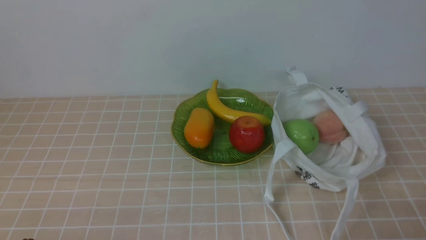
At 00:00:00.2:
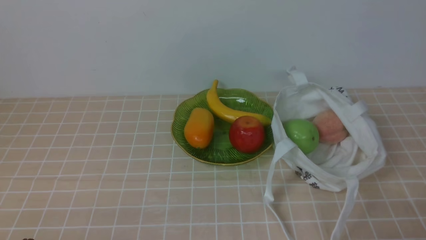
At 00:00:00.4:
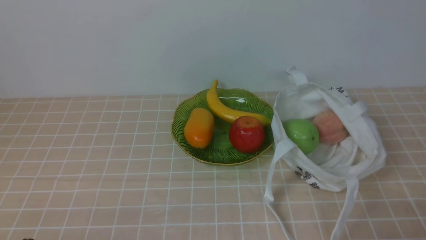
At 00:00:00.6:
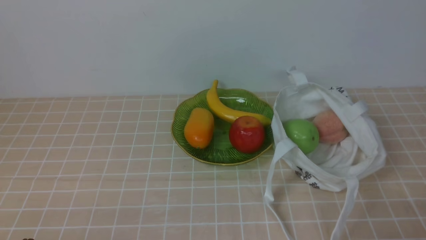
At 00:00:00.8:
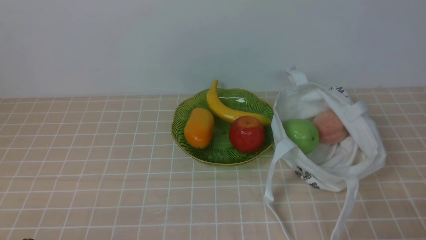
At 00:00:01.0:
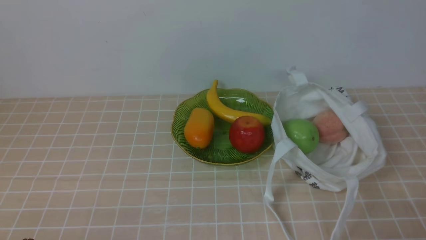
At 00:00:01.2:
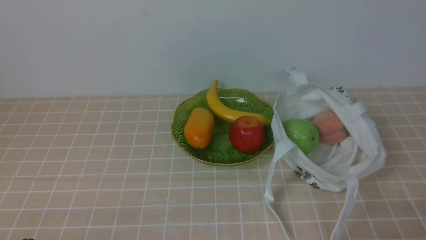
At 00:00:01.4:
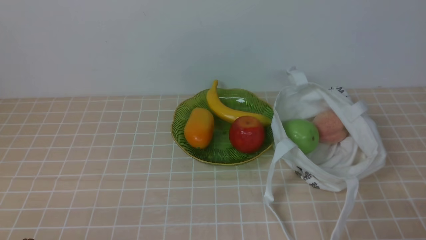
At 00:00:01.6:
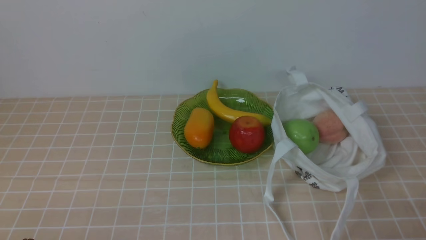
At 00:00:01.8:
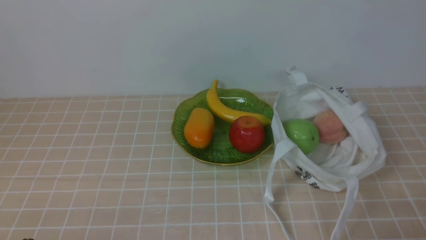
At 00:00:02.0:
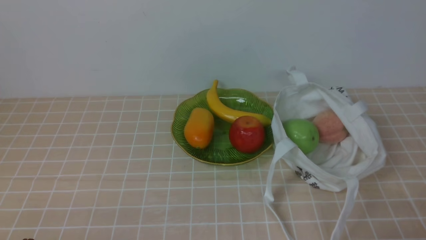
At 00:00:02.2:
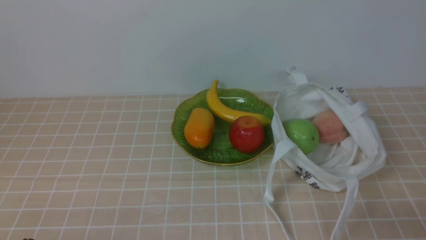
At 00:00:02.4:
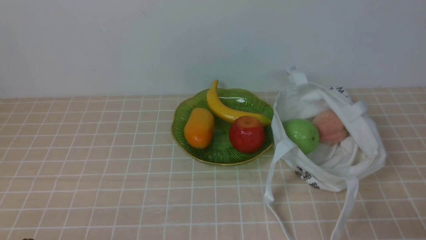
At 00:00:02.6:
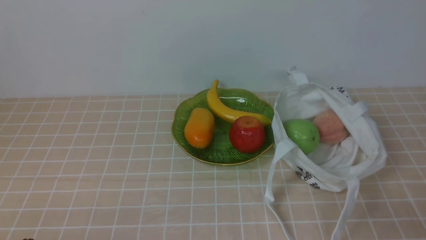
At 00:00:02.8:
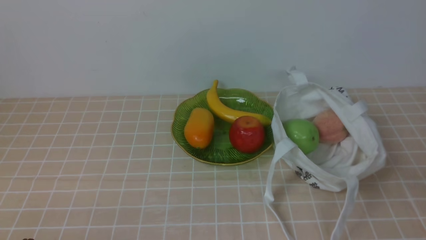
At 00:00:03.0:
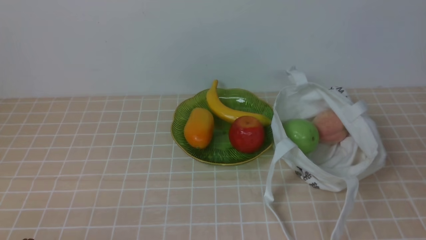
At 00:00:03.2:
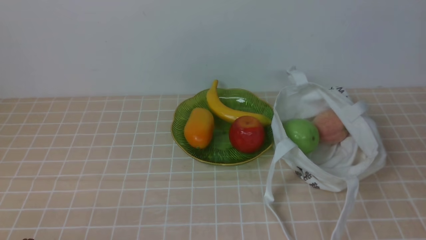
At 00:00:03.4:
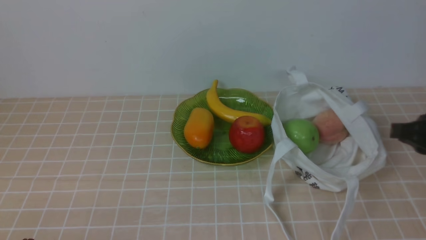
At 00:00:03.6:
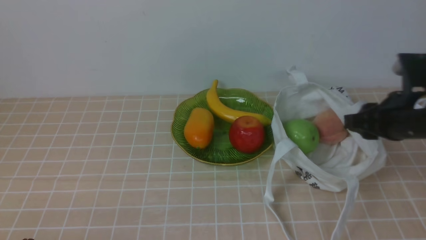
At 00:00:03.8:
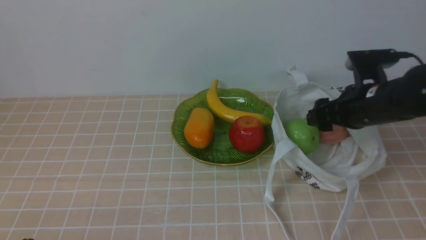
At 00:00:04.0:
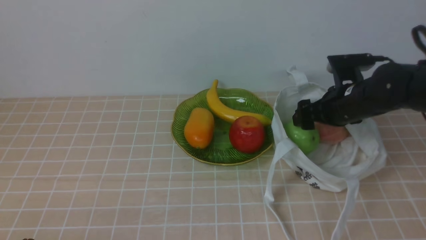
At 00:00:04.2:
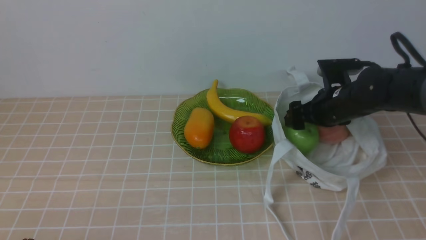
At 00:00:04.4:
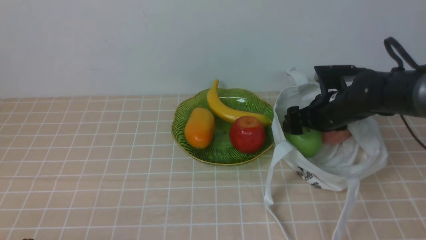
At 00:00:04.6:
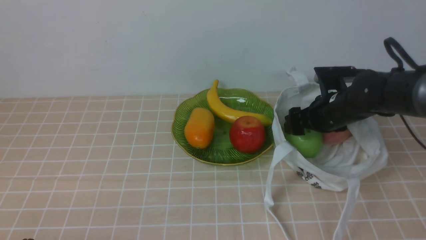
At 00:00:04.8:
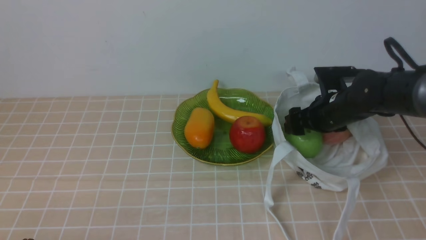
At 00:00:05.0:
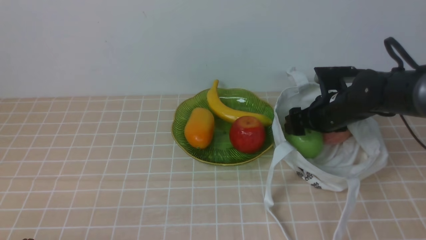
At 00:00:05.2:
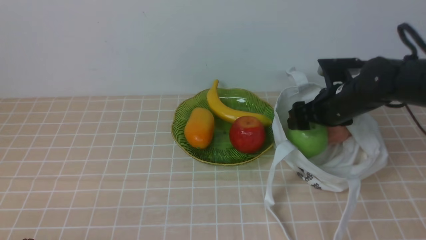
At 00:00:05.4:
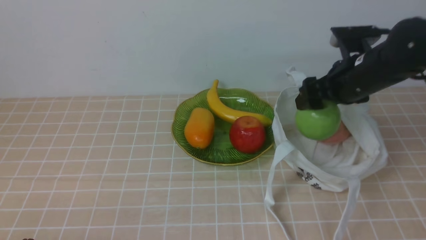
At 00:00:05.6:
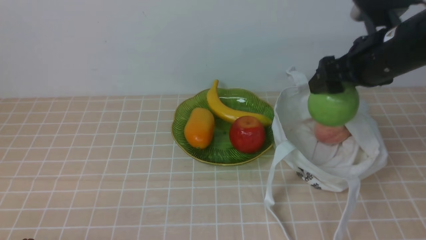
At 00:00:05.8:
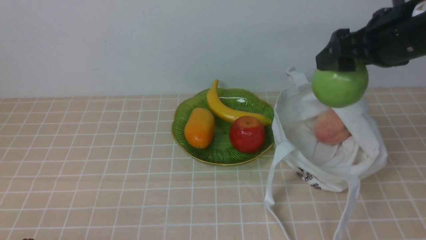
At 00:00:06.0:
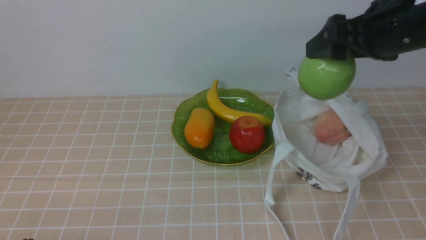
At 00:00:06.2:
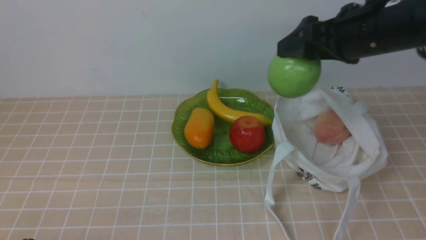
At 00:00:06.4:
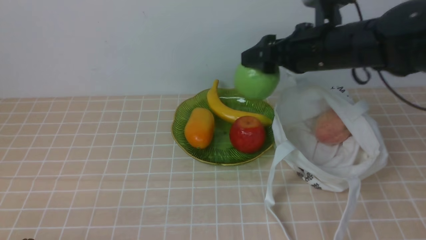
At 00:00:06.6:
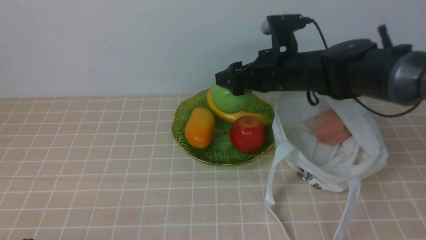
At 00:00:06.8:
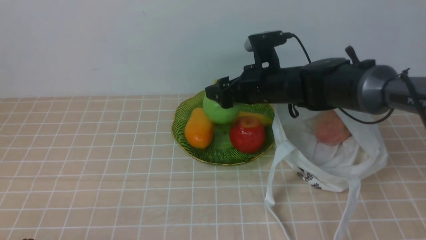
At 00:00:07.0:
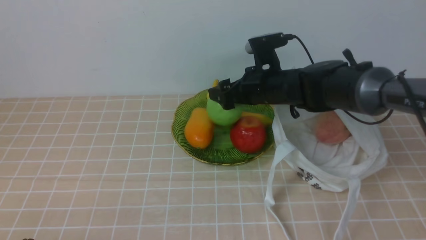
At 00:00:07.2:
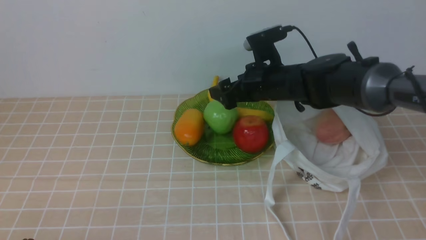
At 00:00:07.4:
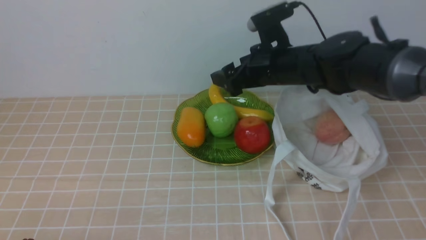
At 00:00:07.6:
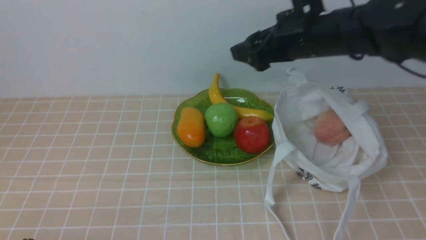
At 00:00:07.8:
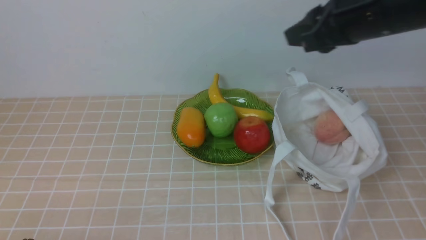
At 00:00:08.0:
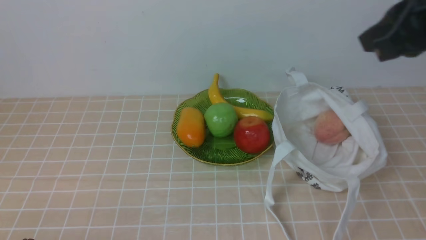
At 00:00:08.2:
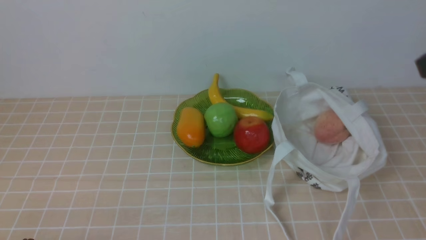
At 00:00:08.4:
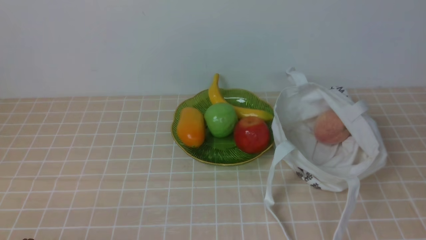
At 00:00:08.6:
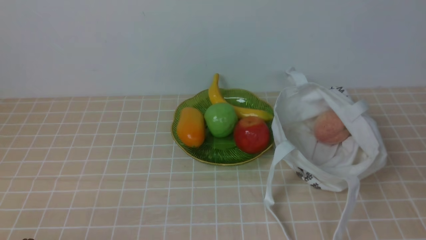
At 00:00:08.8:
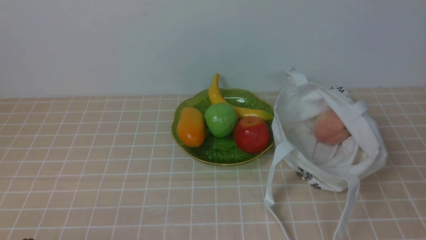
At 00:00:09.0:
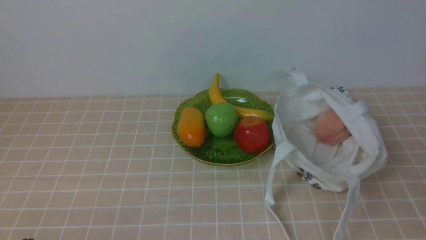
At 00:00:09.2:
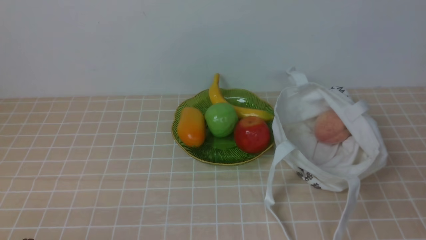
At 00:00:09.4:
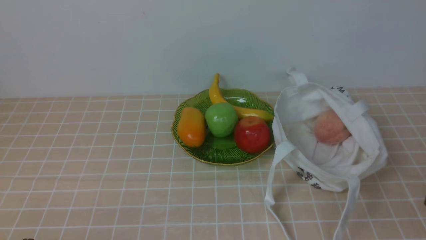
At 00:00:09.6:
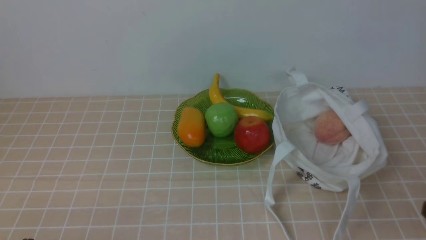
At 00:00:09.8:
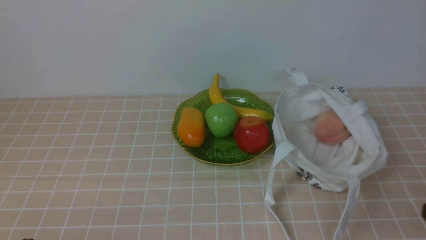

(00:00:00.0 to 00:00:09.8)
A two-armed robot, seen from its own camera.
Step, 00:00:00.0 - 00:00:05.0: use the right arm to grab an apple from the bag.
Step, 00:00:05.4 - 00:00:07.2: use the right arm to put the apple into the empty plate on the left.
00:00:02.8 - 00:00:04.2: The right gripper shifts roughly 35 cm forward, and opens up.
00:00:04.2 - 00:00:05.6: The right gripper is displaced upward by some 10 cm.
00:00:05.6 - 00:00:07.0: The right gripper travels to the left, downward and forward by about 15 cm.
00:00:07.0 - 00:00:08.4: The right gripper moves backward, upward and to the right, some 35 cm, and closes.

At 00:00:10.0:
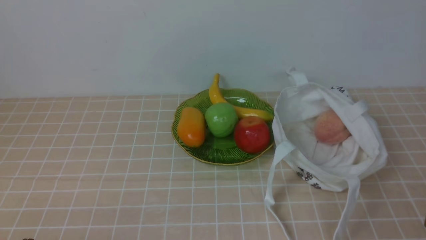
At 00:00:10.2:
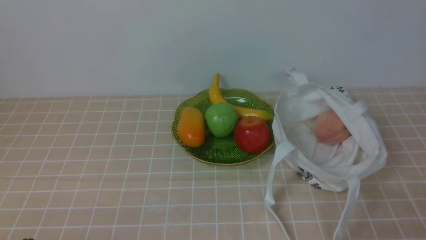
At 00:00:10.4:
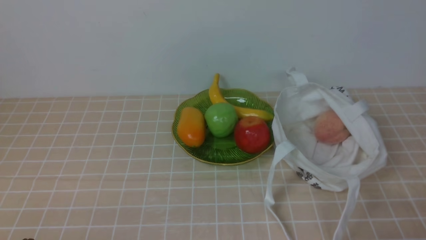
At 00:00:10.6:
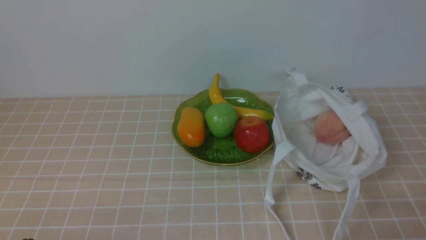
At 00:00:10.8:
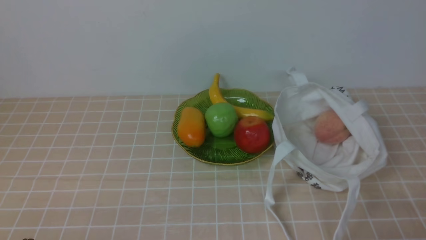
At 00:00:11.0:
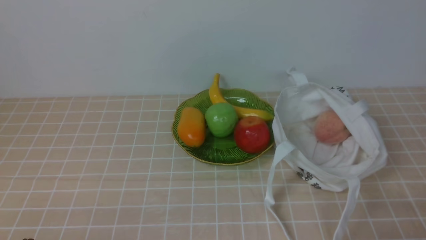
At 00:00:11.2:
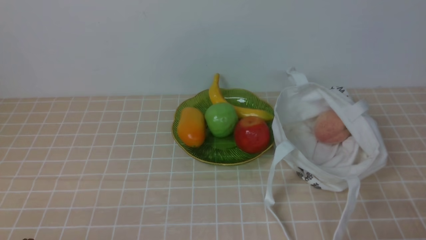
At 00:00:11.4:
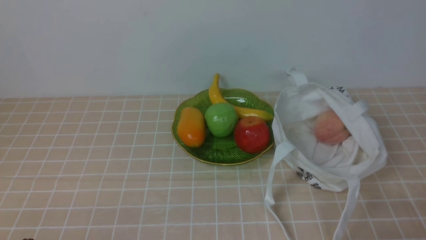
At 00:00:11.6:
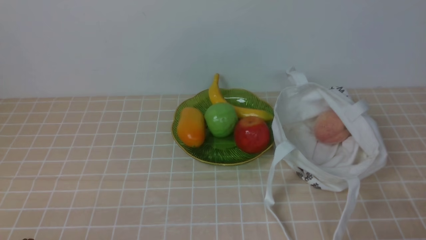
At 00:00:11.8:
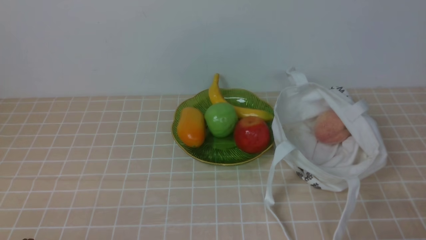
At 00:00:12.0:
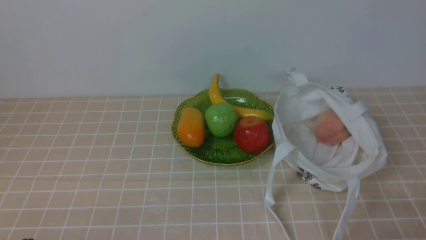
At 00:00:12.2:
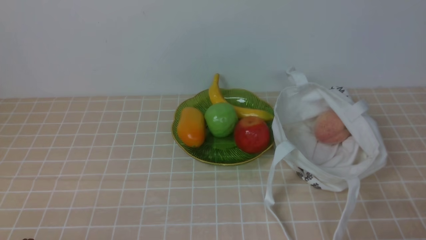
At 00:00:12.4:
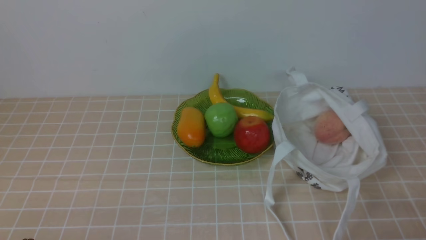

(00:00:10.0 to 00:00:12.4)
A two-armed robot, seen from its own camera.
00:00:11.2 - 00:00:12.4: The two grippers keep their place.
